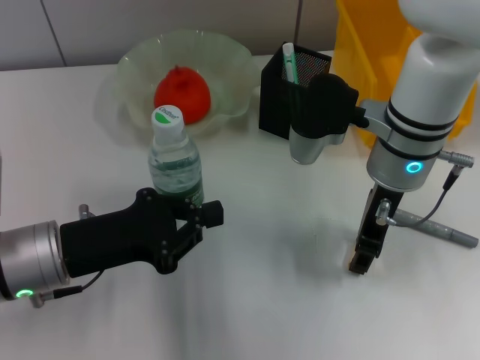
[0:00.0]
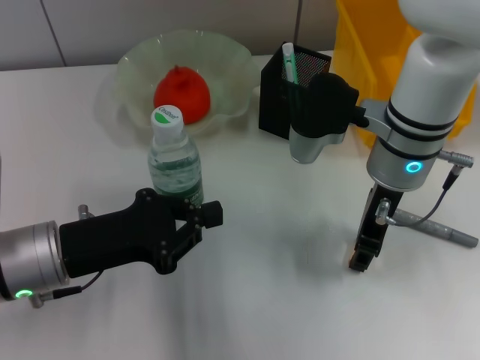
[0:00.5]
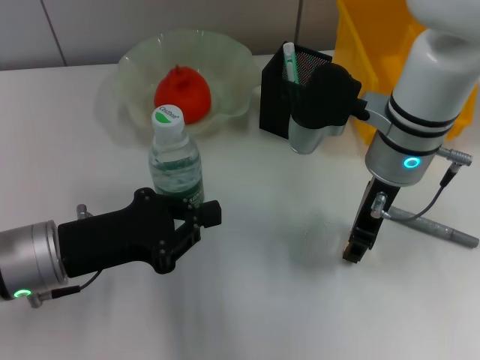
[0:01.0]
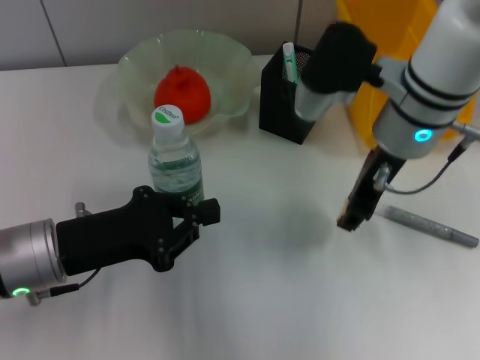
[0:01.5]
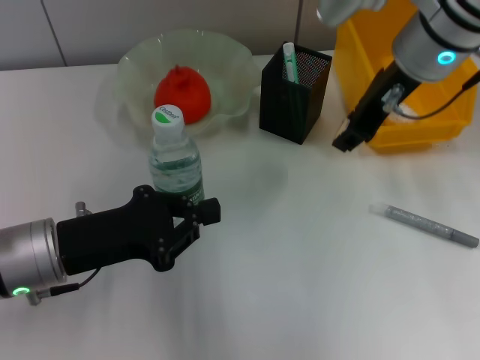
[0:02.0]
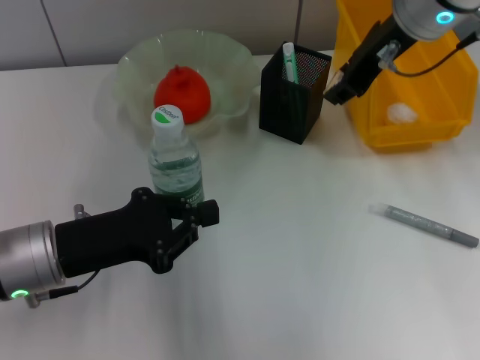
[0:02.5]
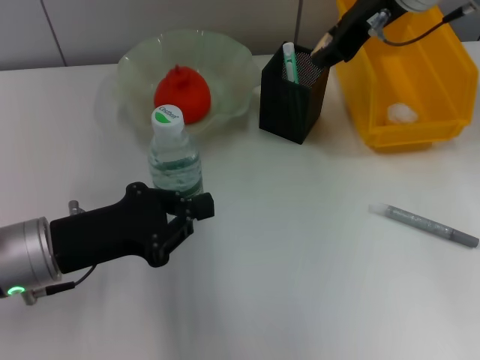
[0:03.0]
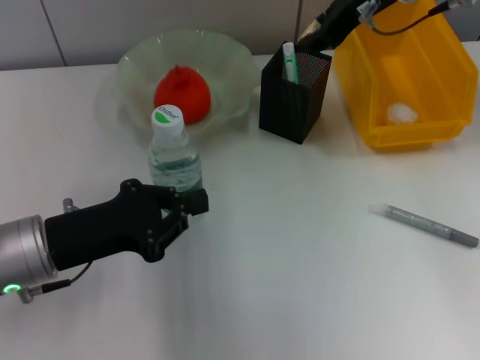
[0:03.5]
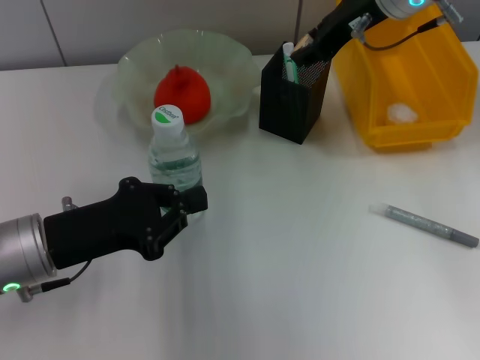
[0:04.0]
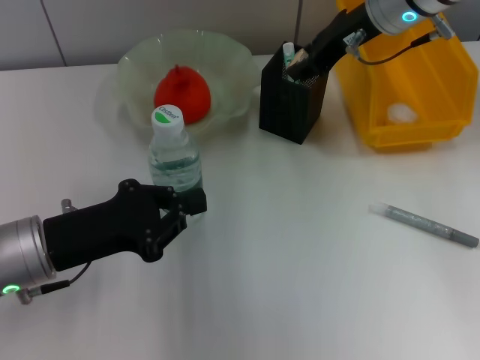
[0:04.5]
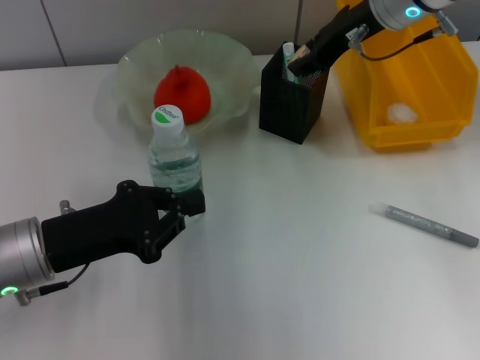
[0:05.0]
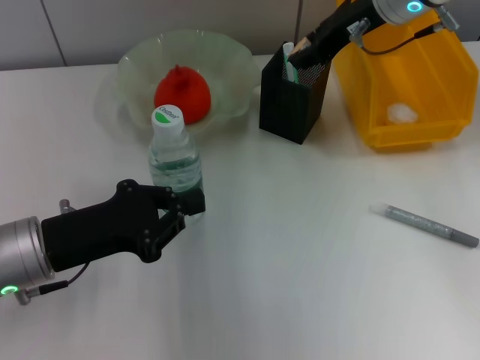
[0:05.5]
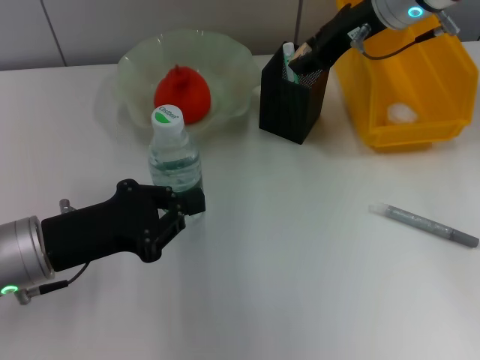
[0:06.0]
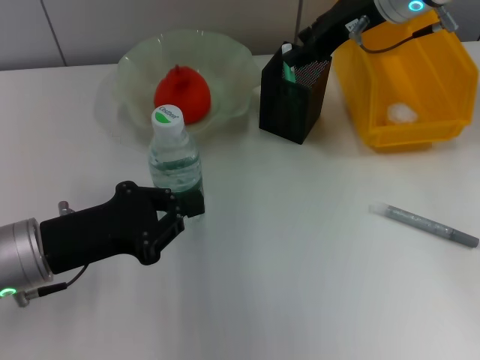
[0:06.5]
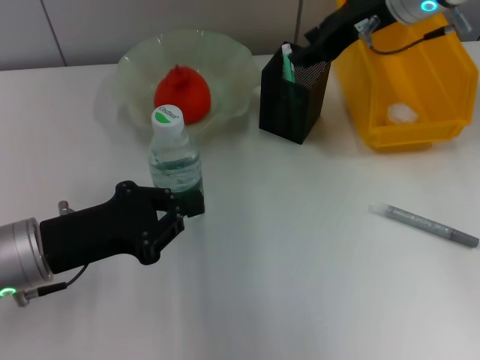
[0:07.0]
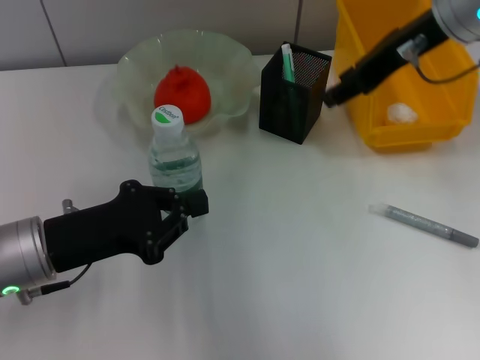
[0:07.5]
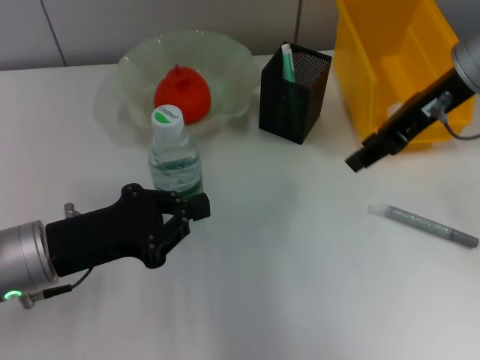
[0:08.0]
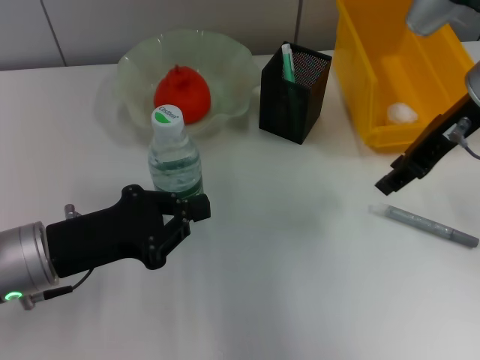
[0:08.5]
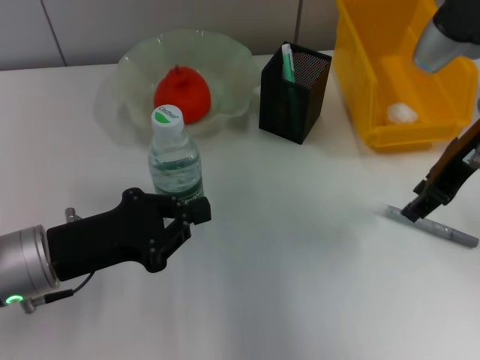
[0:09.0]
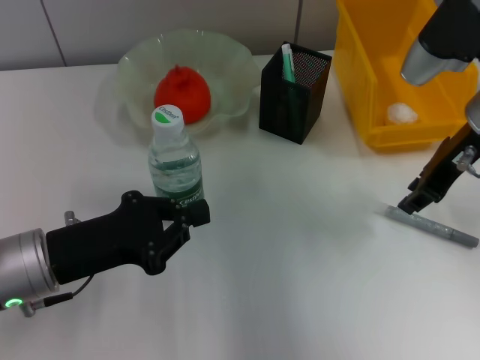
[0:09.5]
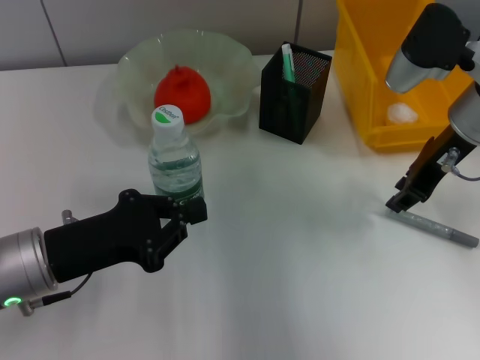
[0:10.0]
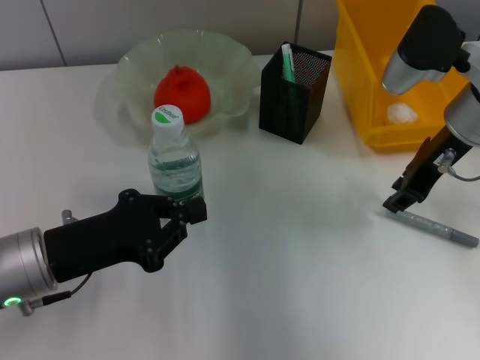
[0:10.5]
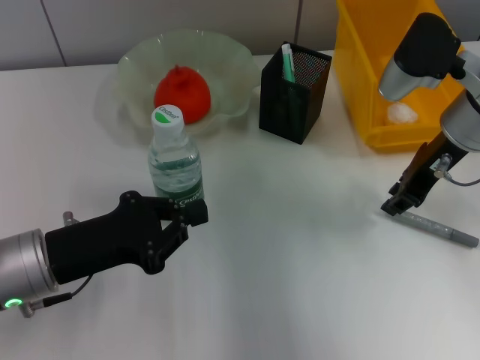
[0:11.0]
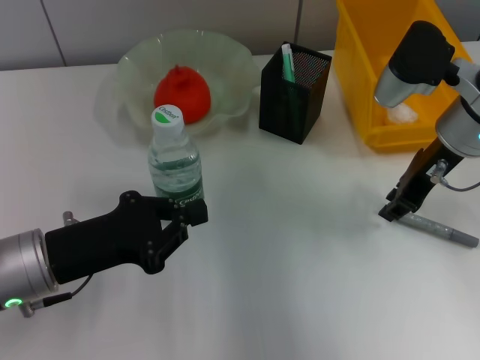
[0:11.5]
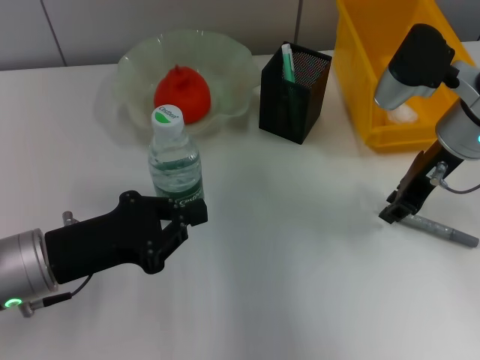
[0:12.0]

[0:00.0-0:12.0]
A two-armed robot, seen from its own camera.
Step, 0:01.0 to 0:06.0: Put the eraser into the pen holder with the right hand.
0:00.0 to 0:02.0: The right gripper shifts approximately 10 cm upward.
0:02.0 to 0:04.0: The right gripper goes roughly 5 cm forward.
0:04.0 to 0:06.0: There are only small adjustments of the grippers.
0:06.0 to 0:08.0: The right gripper heads backward, covering some 10 cm.
0:08.0 to 0:10.0: The right gripper shifts roughly 5 cm downward.
0:10.0 to 0:12.0: The grippers make only small movements.

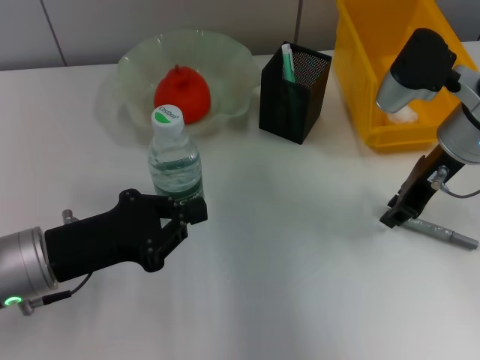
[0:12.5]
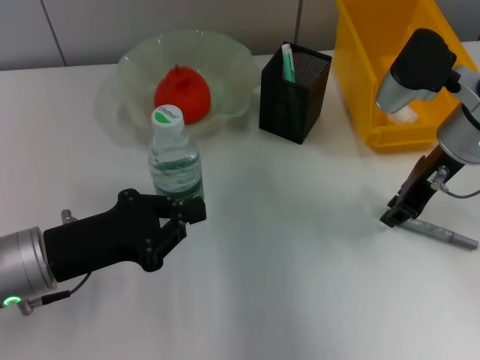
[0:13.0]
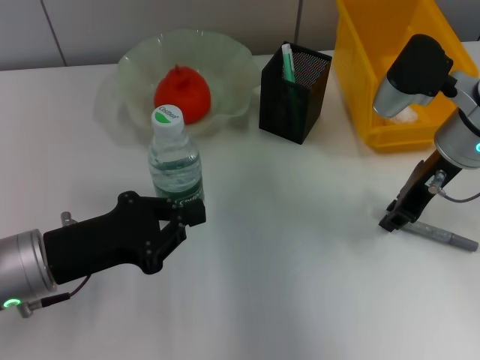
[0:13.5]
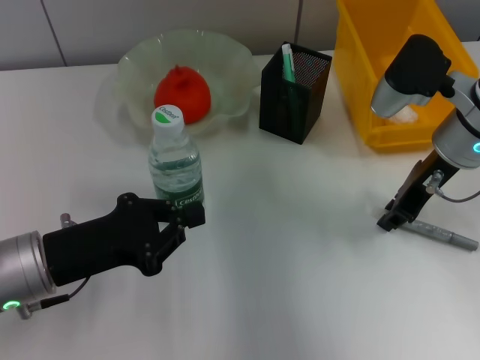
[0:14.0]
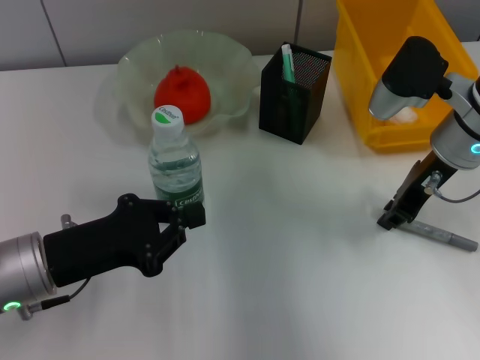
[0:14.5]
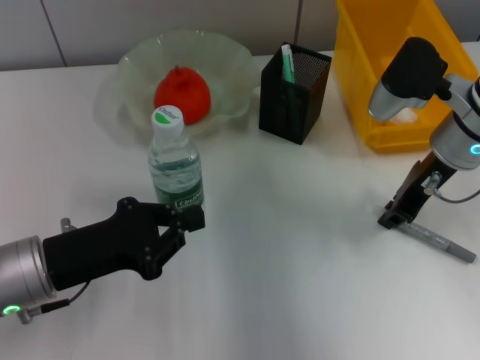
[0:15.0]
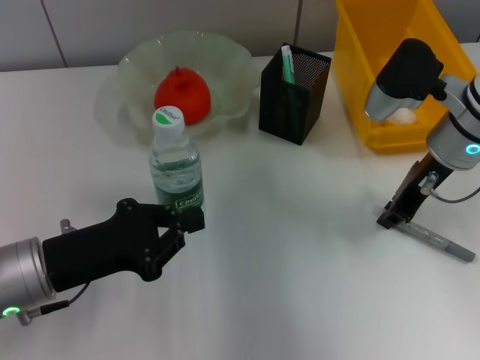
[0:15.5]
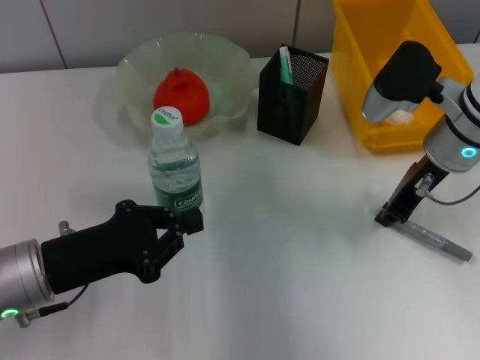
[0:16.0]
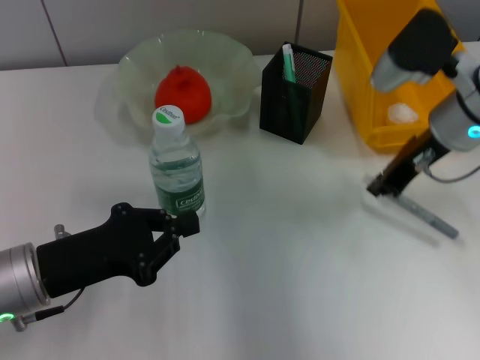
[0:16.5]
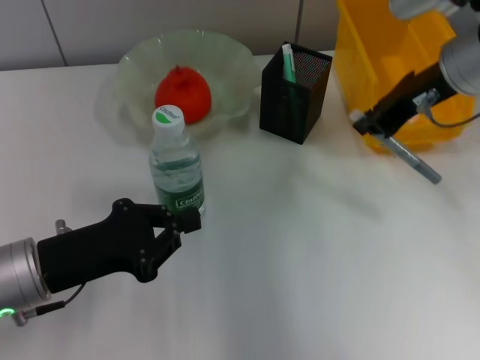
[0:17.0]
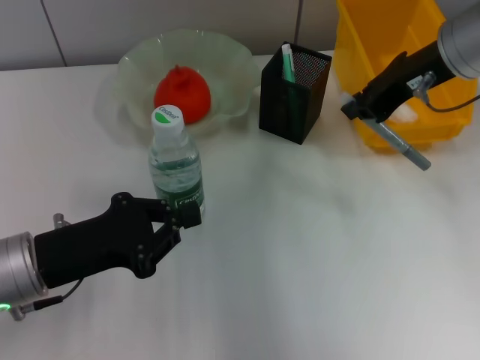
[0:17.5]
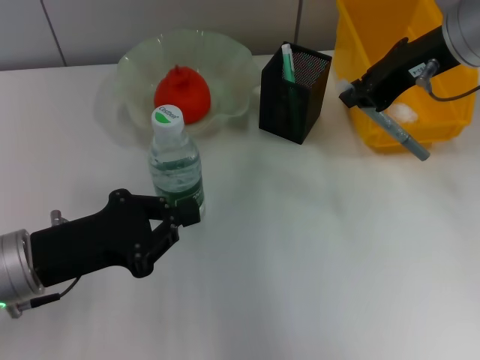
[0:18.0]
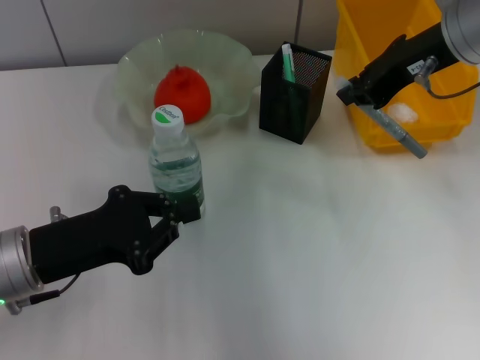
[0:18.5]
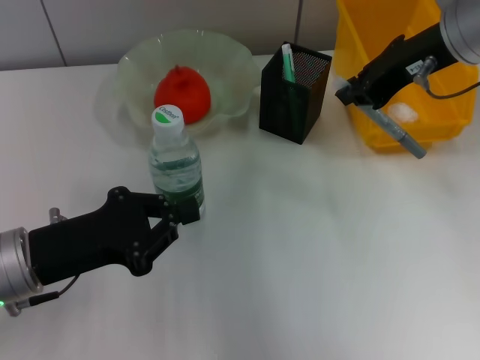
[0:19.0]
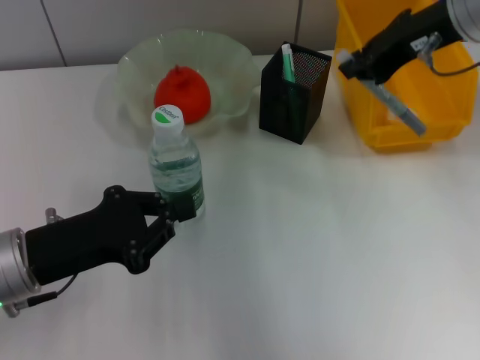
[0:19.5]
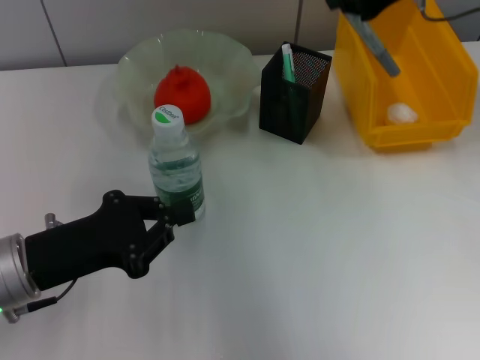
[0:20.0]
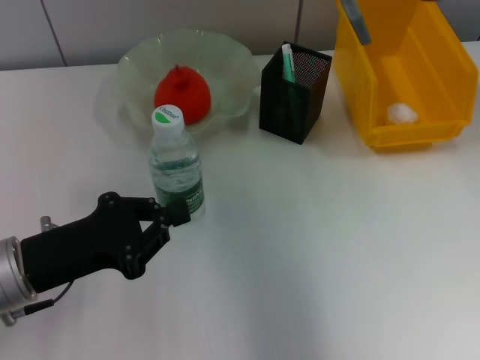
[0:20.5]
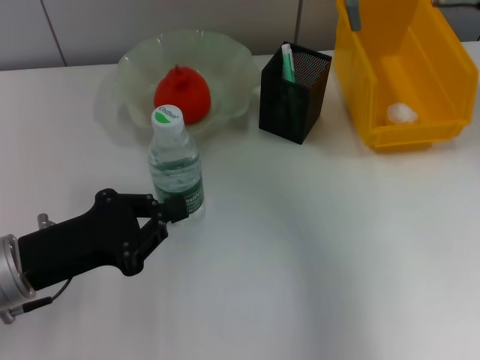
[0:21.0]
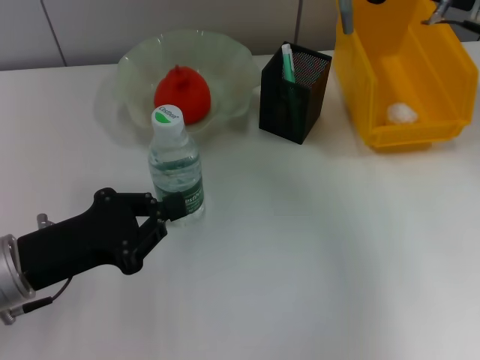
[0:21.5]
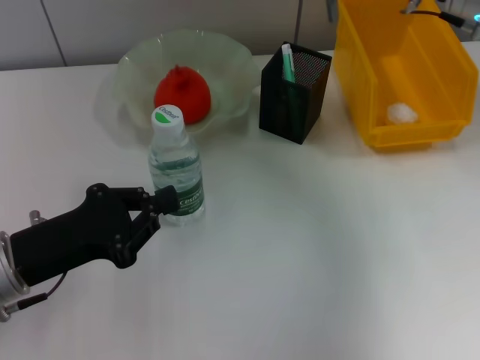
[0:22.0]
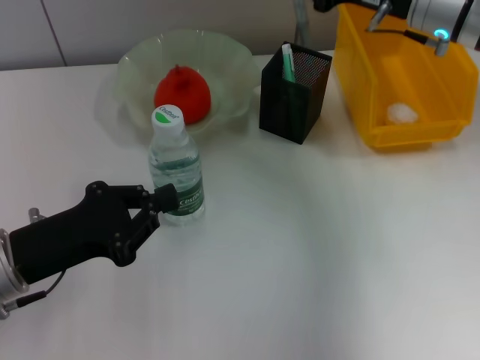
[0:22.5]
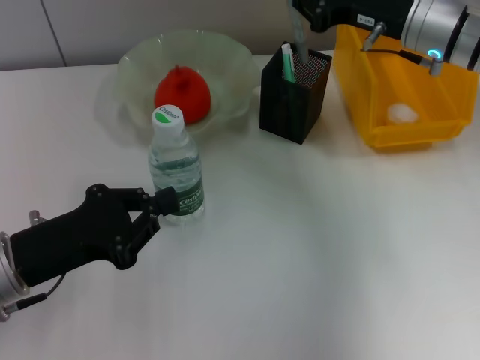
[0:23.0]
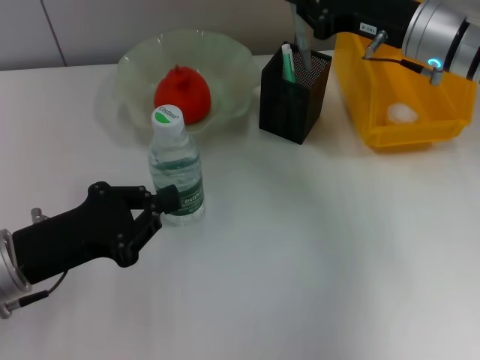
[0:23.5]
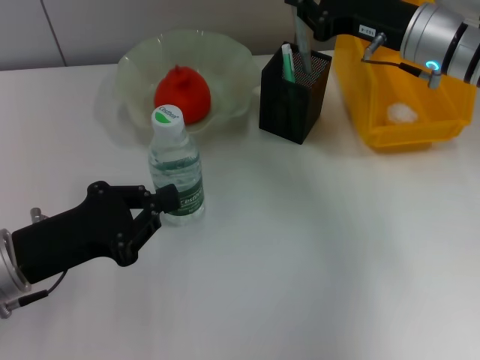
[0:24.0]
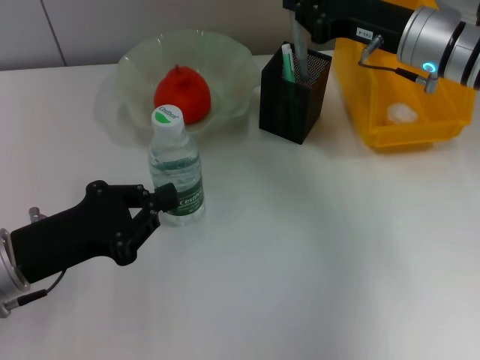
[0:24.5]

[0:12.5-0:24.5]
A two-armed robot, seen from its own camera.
Step, 0:12.5 to 0:16.0: Grab the gray glue with the right hand.
0:12.5 to 0:14.5: Both grippers stay put.
0:14.5 to 0:16.5: The grippers move only a little.
0:16.5 to 0:18.5: The right gripper shifts roughly 10 cm upward.
0:20.5 to 0:22.5: The right gripper moves downward, roughly 10 cm.
0:22.5 to 0:24.5: There are only small adjustments of the grippers.

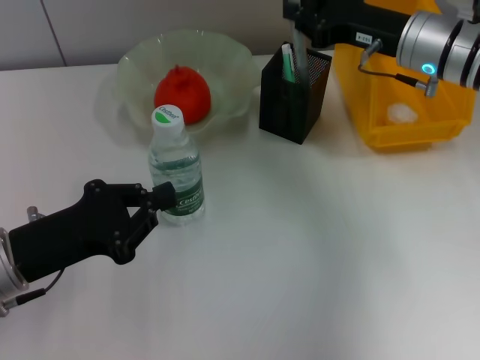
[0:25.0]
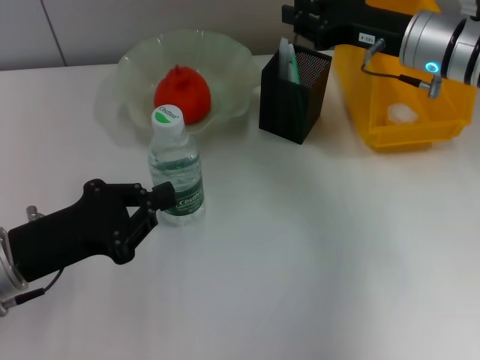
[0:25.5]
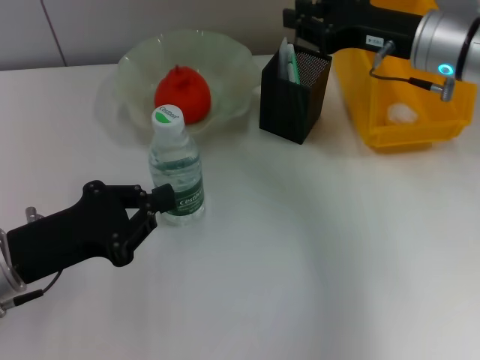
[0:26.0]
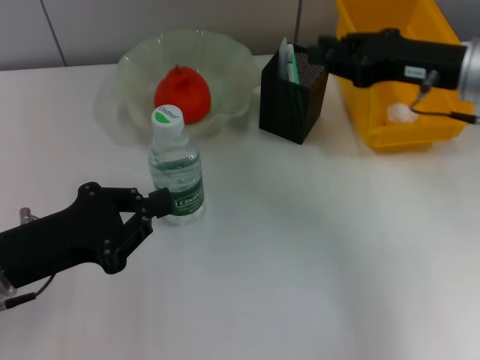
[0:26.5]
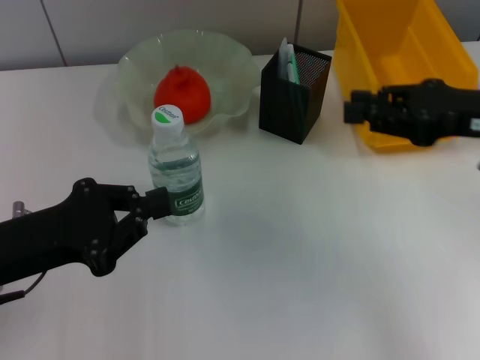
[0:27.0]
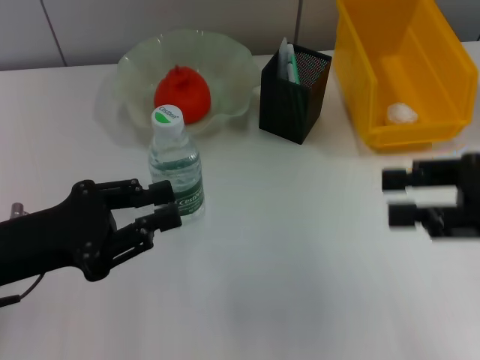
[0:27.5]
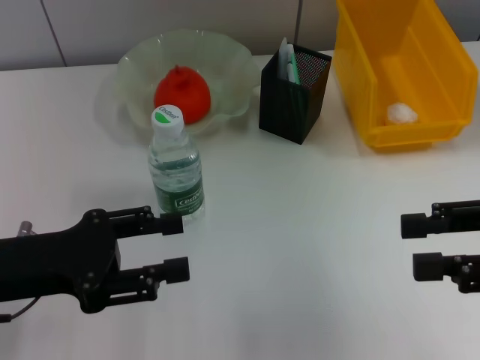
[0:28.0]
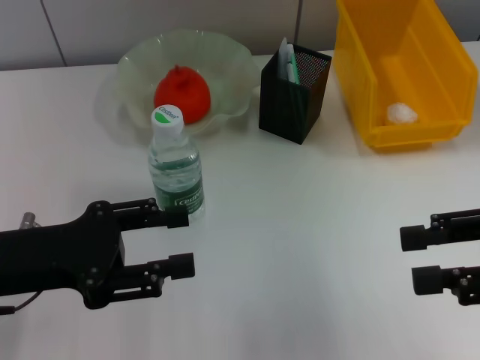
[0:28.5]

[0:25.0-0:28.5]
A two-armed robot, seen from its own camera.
0:25.0 to 0:27.0: The right gripper shifts about 15 cm backward and to the right.
0:27.0 to 0:28.5: The right gripper goes some 10 cm backward, and opens. The left gripper opens its fingers.
